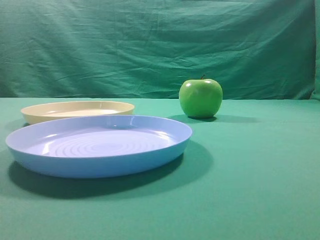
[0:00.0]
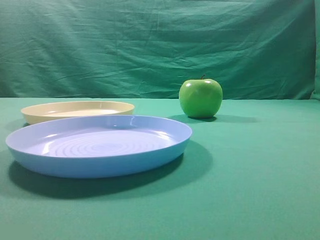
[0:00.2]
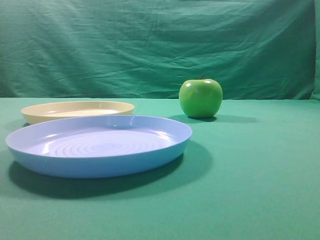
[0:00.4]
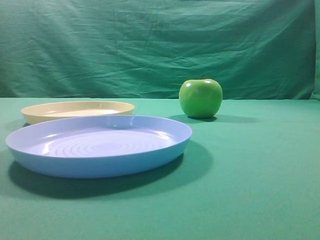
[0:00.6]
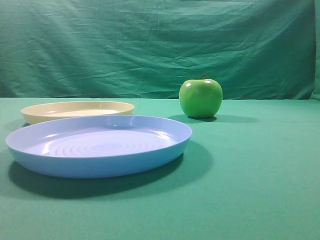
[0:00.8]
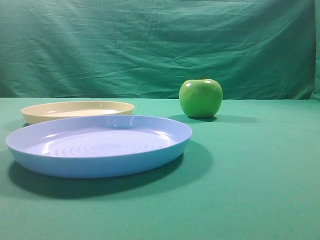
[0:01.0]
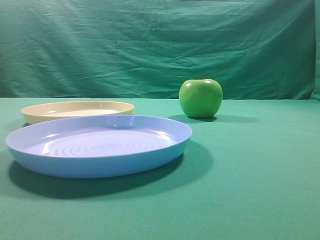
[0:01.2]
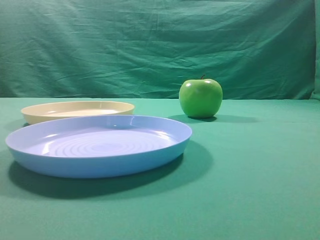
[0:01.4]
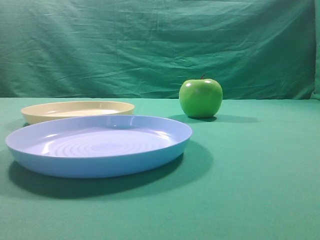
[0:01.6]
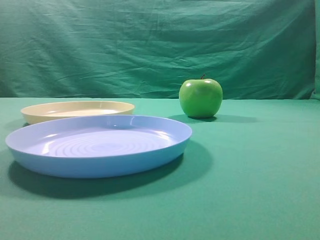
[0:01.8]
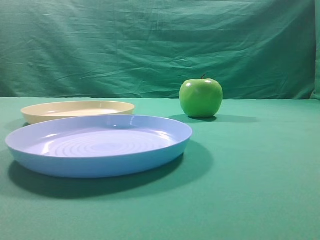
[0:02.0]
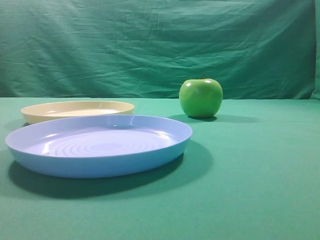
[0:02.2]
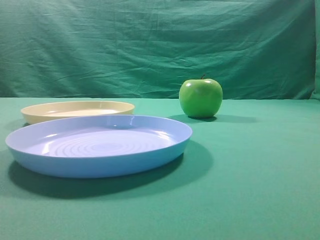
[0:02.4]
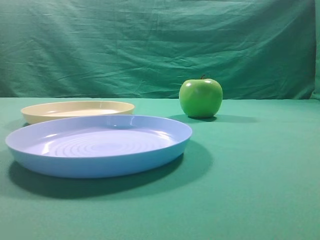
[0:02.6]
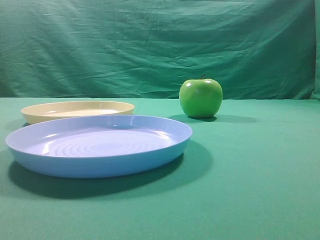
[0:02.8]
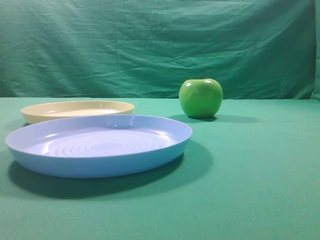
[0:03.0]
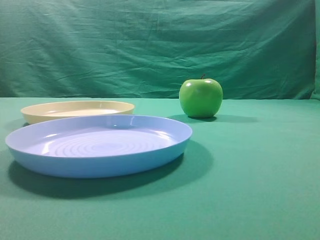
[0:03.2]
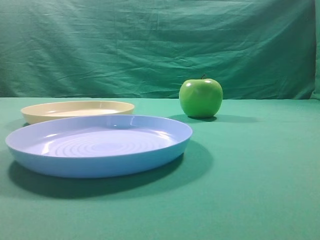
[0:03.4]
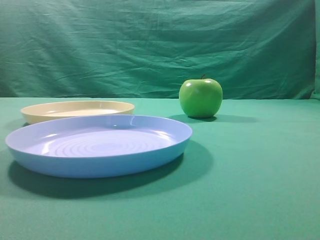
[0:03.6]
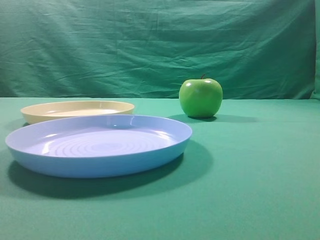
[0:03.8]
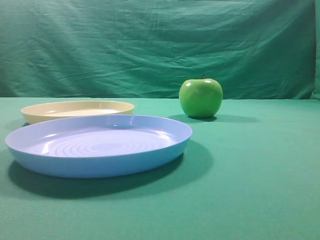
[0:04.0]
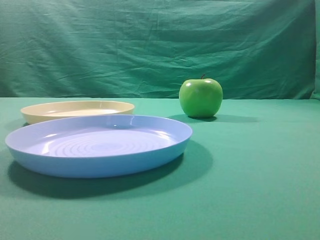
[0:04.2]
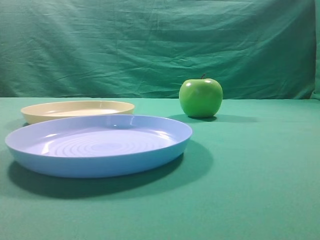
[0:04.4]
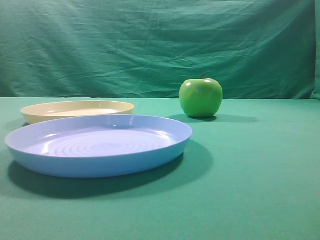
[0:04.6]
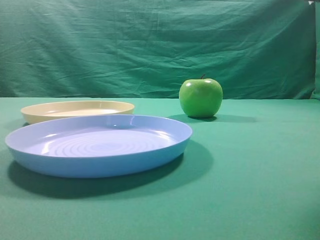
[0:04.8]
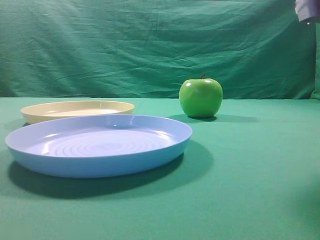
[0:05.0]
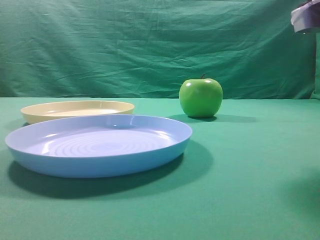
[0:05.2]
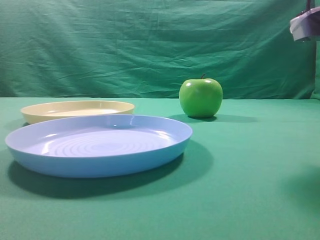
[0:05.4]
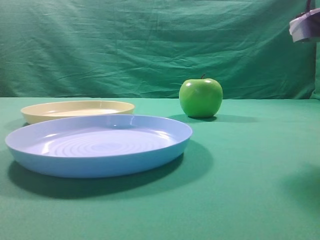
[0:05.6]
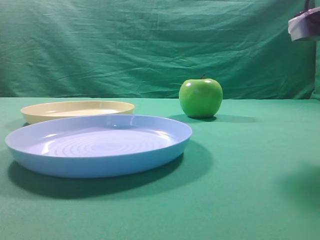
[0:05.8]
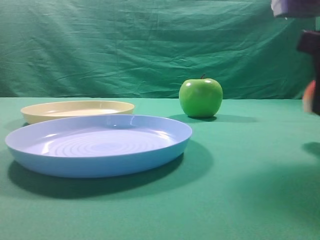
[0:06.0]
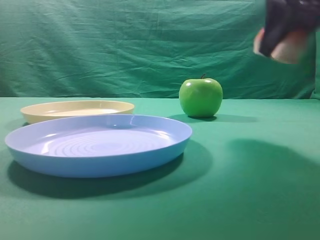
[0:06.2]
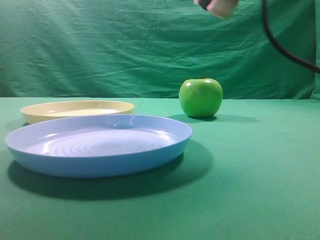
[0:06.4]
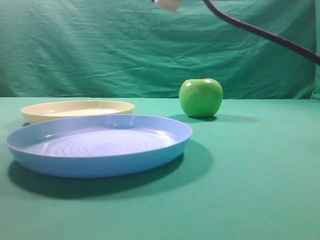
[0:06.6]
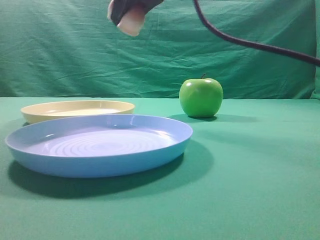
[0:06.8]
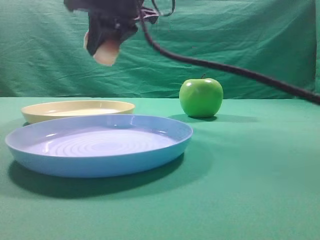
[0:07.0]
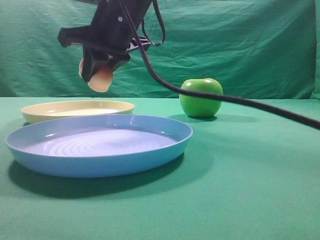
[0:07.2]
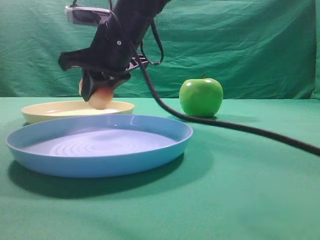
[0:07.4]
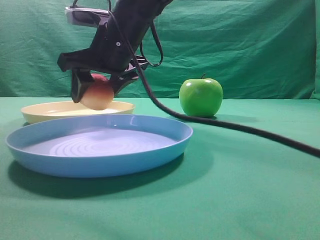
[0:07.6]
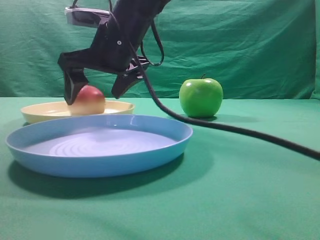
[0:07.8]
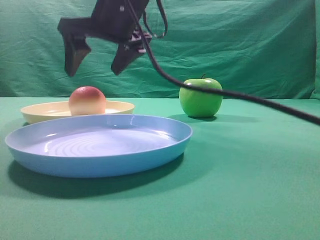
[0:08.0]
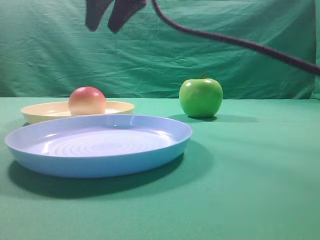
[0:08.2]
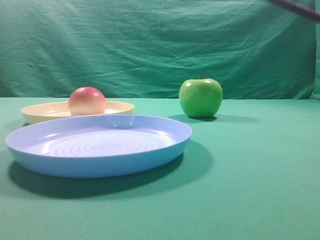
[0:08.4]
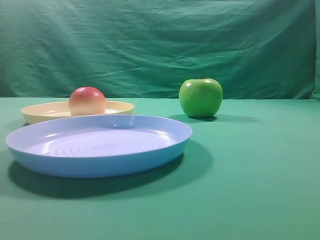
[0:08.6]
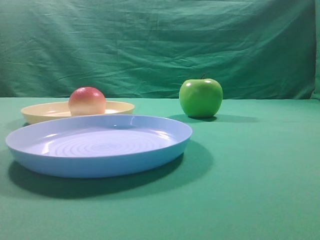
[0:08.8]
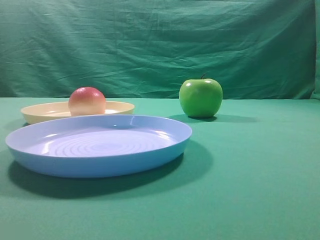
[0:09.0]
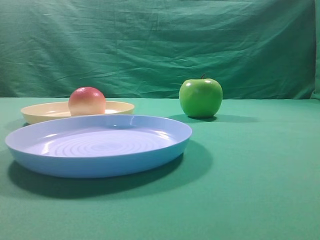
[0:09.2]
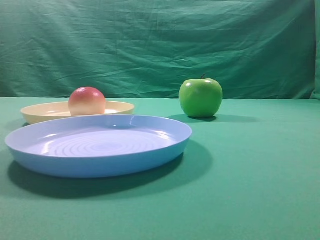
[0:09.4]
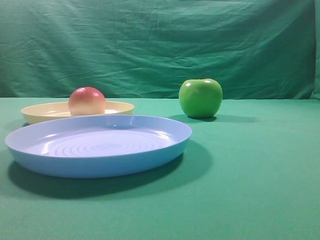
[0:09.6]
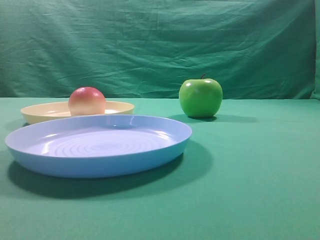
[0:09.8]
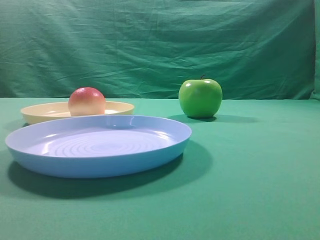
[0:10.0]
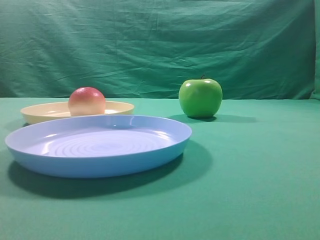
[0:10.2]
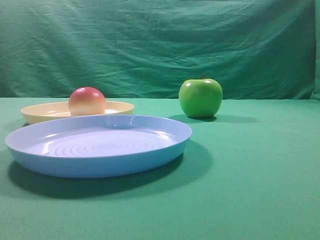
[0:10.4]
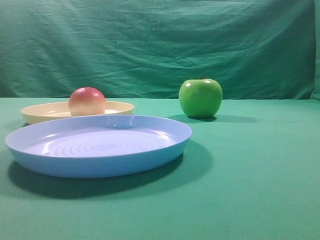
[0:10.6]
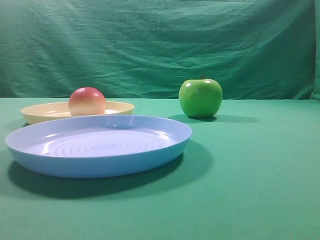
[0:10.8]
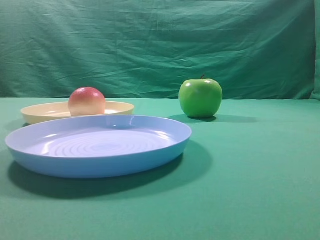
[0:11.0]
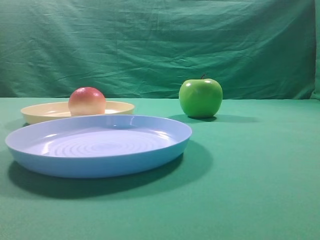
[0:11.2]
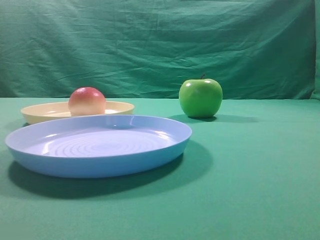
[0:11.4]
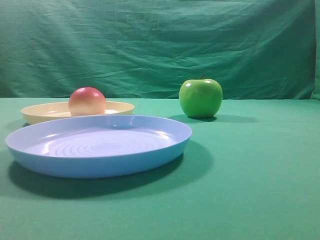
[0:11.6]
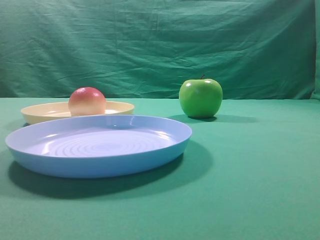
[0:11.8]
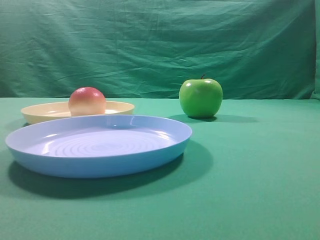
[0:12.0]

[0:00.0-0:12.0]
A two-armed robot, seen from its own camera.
Step, 0:06.2 to 0:08.0: Place the picked object on the yellow plate.

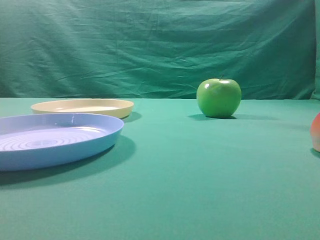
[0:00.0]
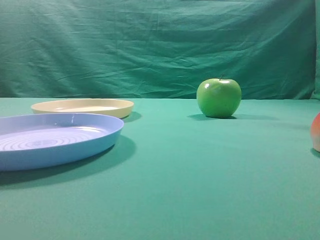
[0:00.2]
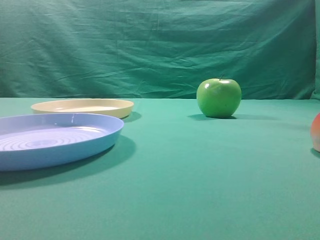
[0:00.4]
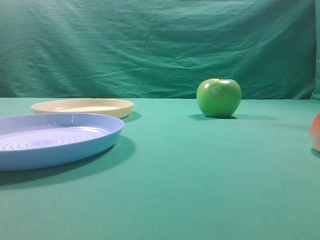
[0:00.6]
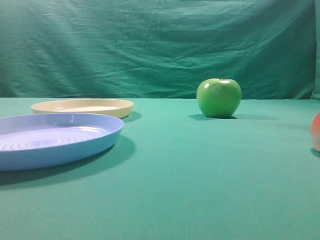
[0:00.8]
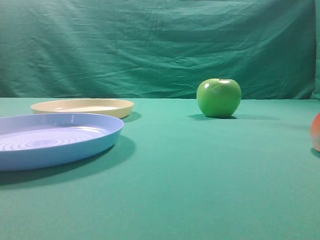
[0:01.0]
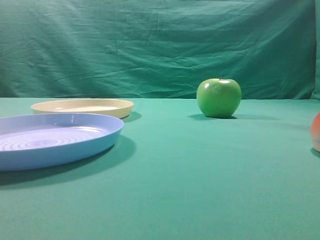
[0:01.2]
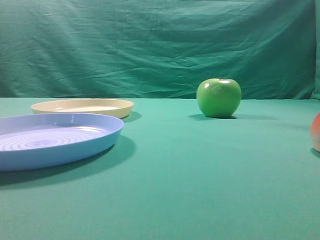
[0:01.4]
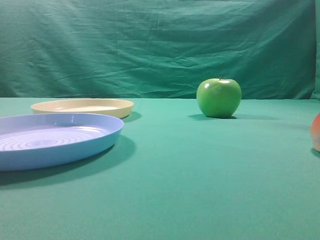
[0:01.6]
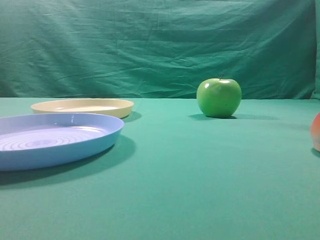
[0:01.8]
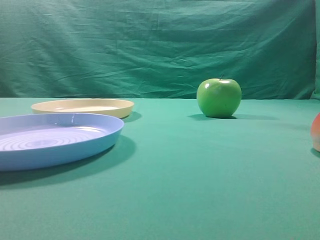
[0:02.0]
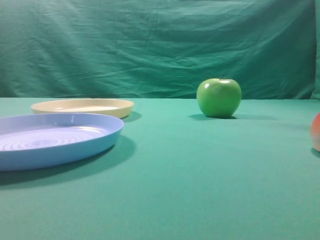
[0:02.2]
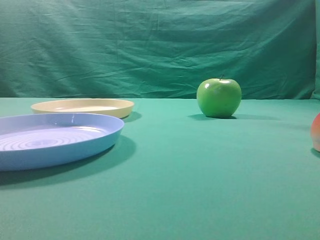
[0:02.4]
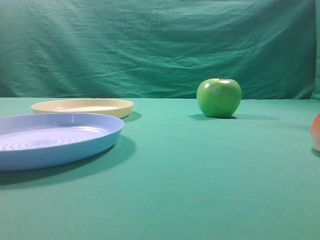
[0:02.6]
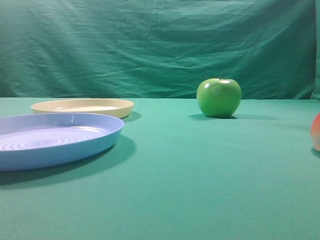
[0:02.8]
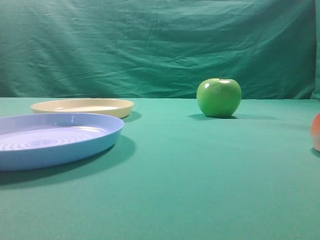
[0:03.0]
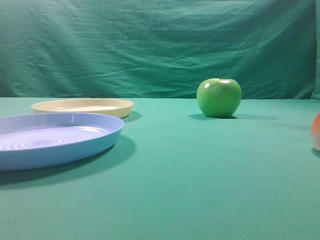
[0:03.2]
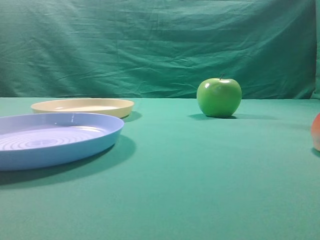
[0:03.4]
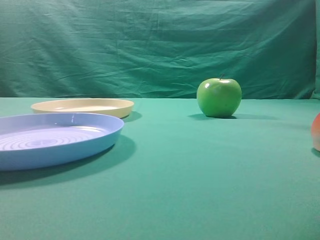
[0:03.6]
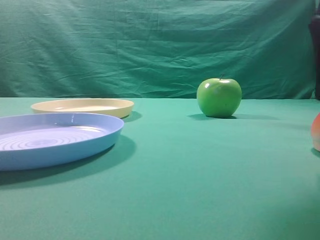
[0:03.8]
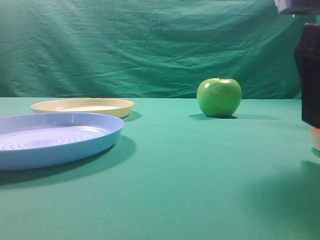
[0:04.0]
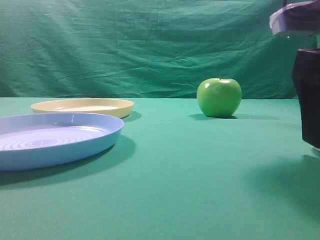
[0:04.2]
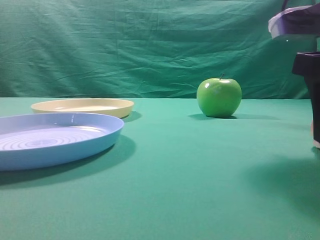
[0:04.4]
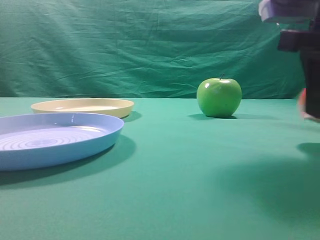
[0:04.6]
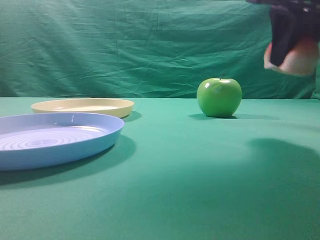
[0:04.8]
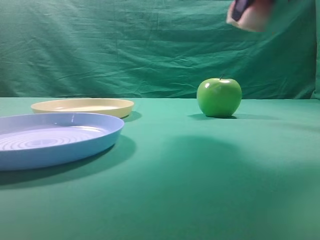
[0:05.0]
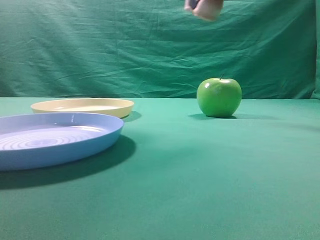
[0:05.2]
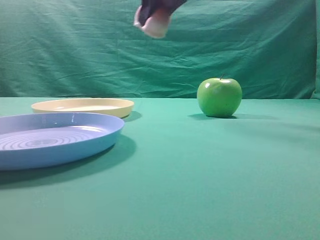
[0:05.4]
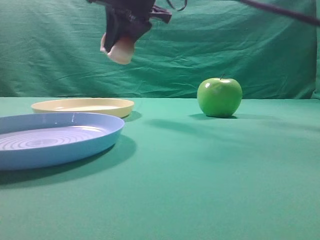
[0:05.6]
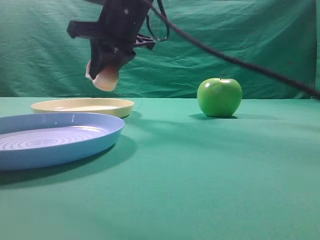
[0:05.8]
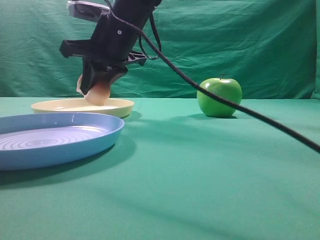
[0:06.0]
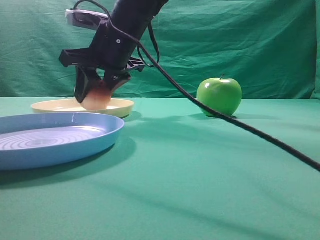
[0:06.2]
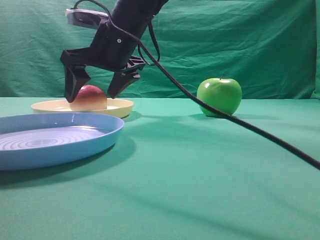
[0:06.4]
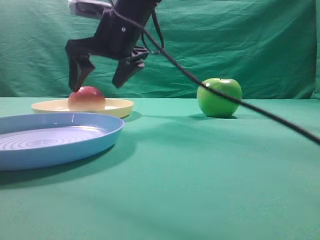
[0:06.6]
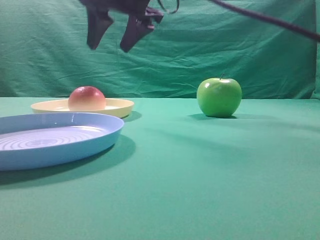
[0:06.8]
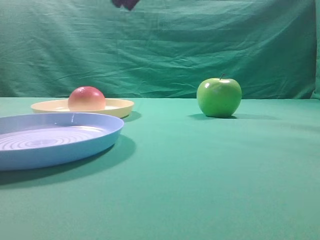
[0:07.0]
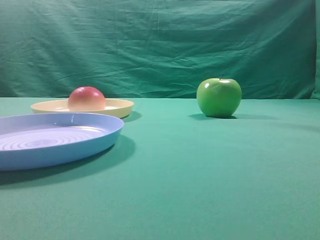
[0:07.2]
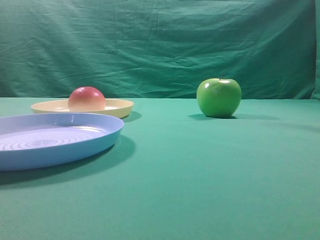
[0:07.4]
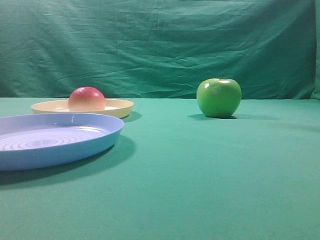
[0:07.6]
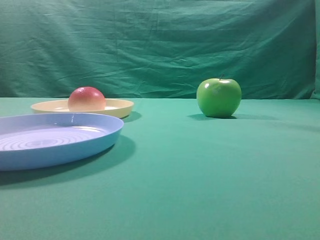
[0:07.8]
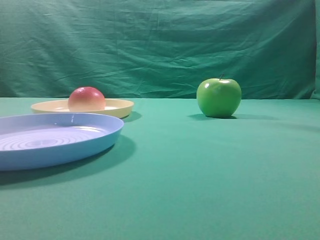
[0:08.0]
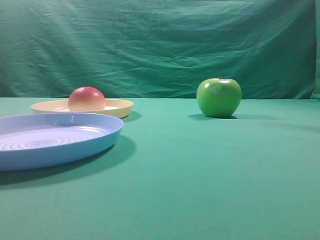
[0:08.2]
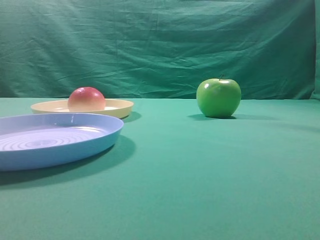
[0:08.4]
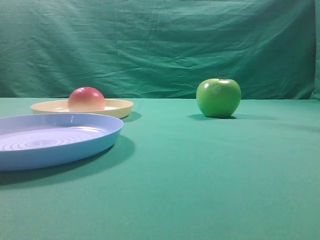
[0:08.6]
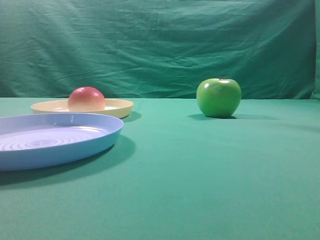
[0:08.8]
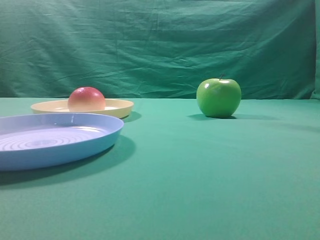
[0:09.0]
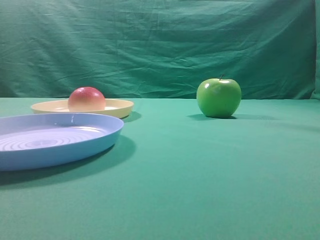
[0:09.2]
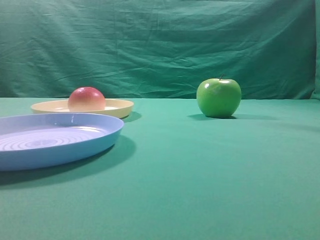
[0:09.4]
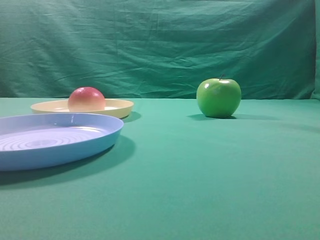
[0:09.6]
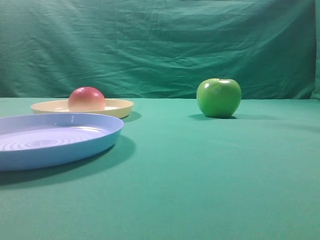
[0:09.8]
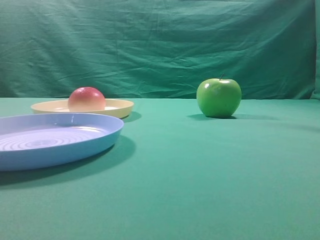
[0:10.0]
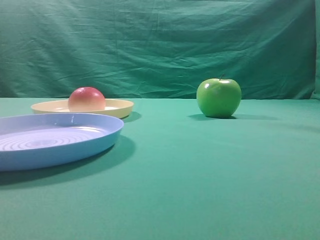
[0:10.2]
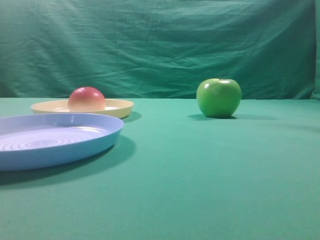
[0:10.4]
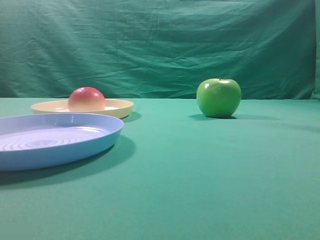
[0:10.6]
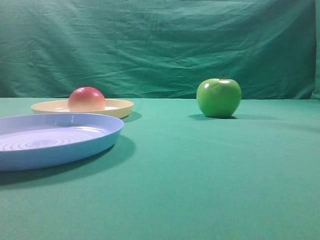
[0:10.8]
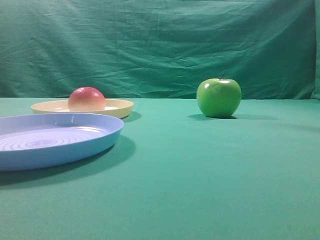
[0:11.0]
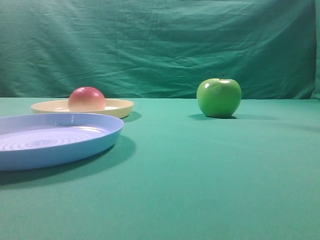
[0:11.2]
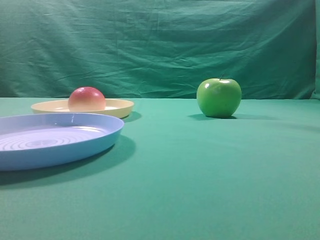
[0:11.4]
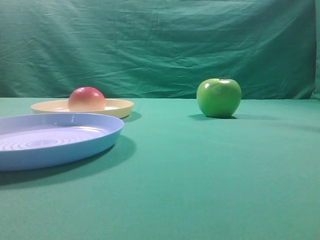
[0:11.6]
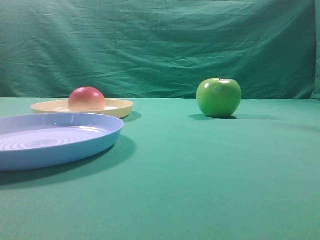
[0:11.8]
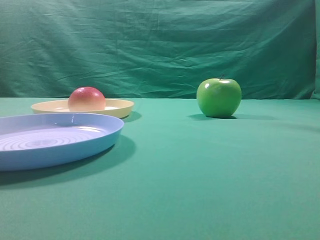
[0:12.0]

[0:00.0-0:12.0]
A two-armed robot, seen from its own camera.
Step, 0:04.8 to 0:06.6: Place the picked object on the yellow plate.
